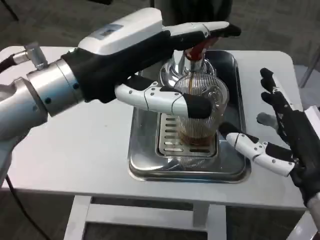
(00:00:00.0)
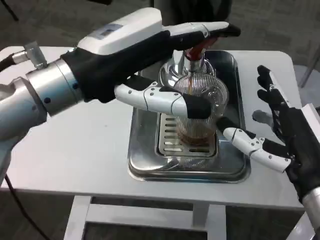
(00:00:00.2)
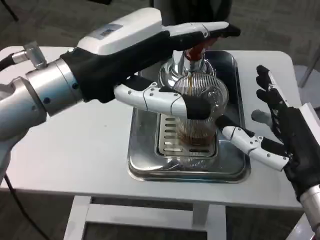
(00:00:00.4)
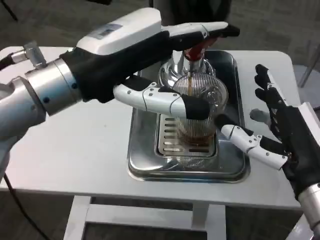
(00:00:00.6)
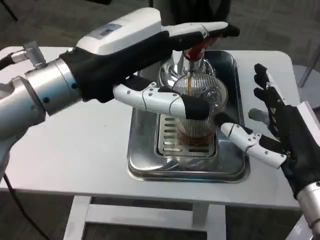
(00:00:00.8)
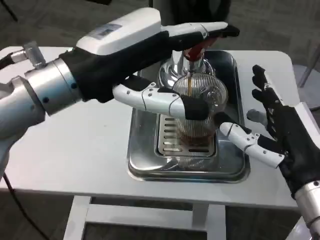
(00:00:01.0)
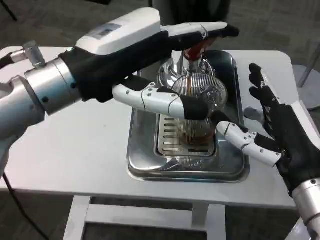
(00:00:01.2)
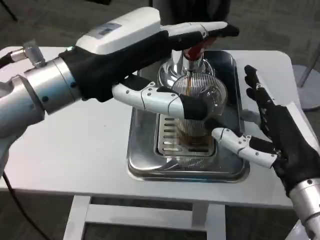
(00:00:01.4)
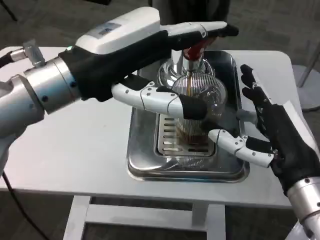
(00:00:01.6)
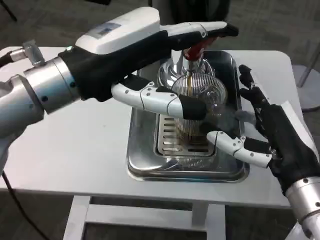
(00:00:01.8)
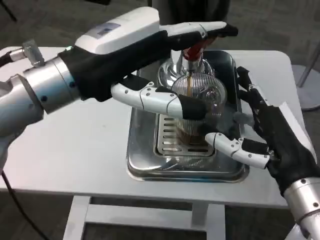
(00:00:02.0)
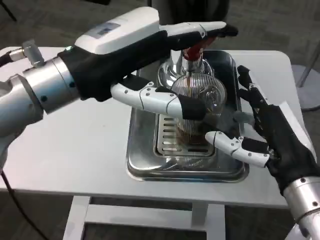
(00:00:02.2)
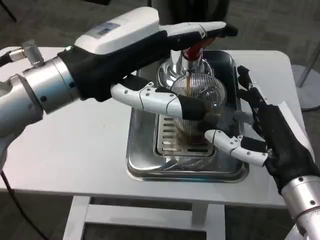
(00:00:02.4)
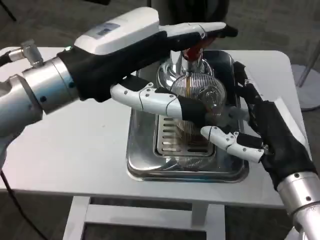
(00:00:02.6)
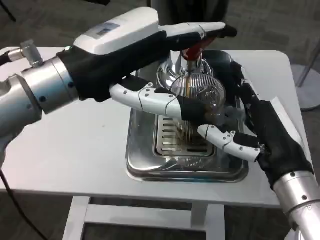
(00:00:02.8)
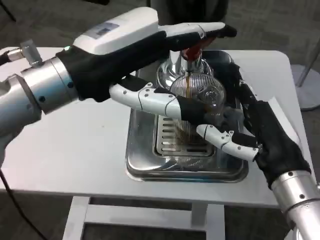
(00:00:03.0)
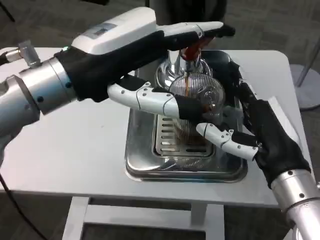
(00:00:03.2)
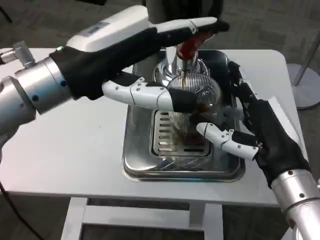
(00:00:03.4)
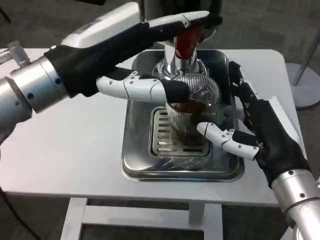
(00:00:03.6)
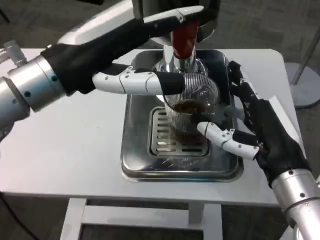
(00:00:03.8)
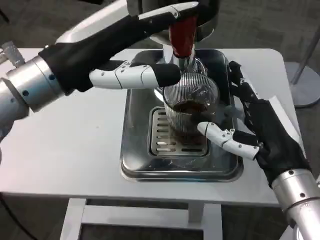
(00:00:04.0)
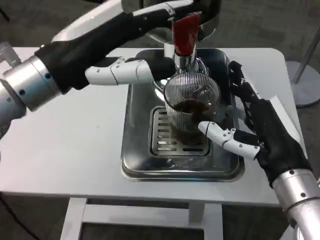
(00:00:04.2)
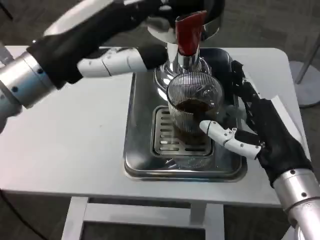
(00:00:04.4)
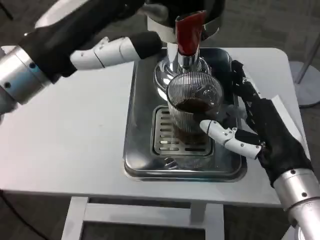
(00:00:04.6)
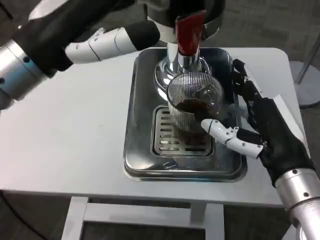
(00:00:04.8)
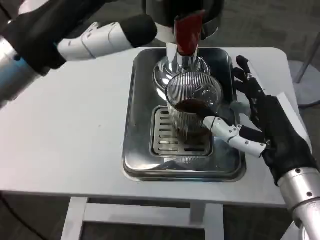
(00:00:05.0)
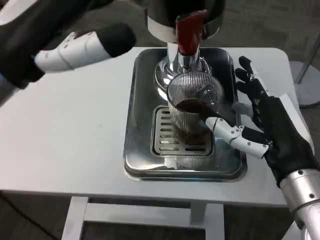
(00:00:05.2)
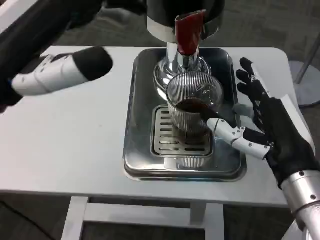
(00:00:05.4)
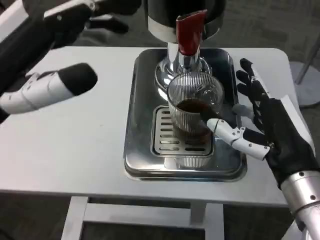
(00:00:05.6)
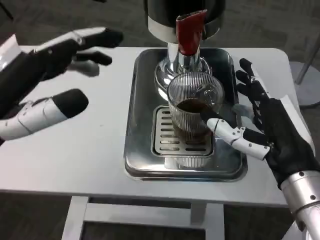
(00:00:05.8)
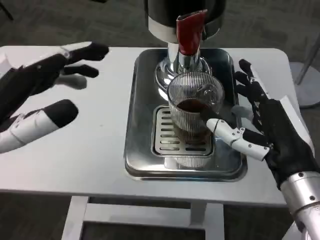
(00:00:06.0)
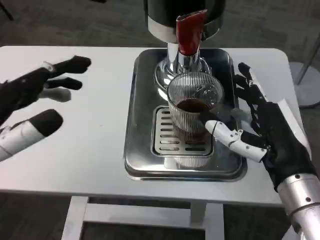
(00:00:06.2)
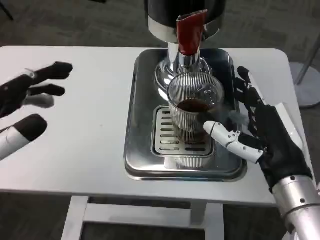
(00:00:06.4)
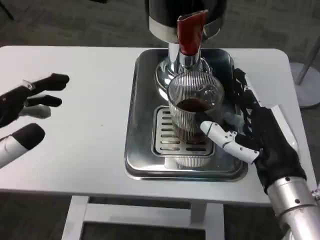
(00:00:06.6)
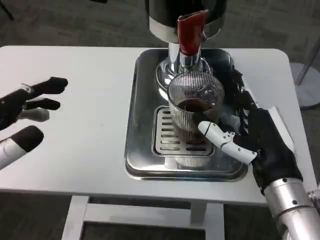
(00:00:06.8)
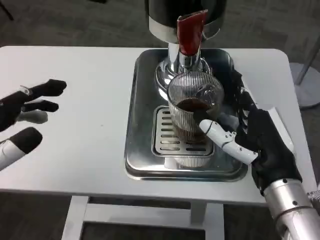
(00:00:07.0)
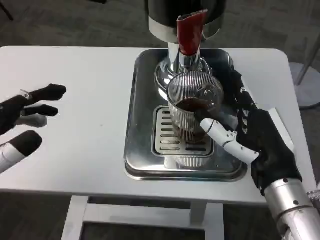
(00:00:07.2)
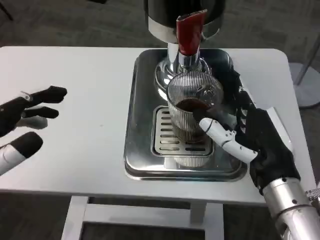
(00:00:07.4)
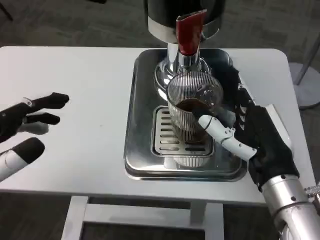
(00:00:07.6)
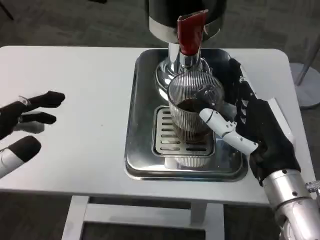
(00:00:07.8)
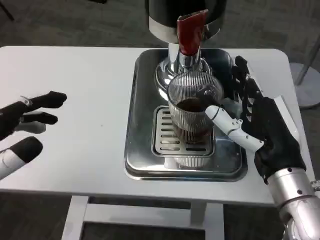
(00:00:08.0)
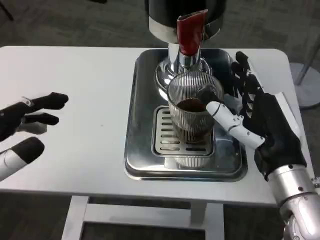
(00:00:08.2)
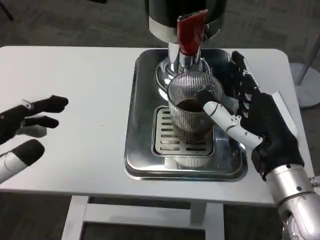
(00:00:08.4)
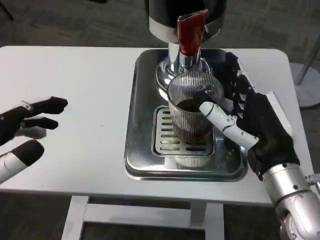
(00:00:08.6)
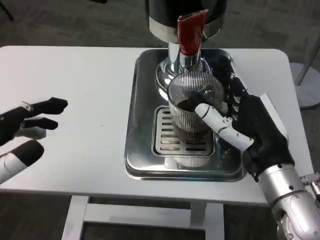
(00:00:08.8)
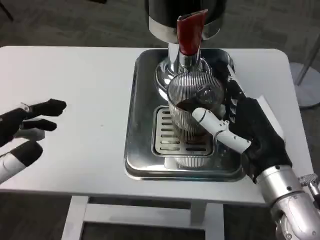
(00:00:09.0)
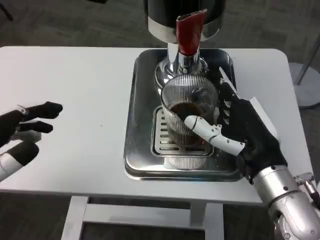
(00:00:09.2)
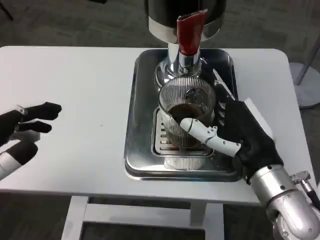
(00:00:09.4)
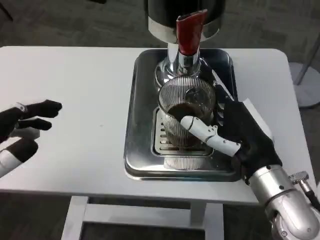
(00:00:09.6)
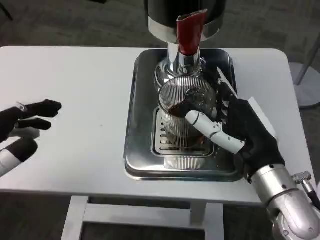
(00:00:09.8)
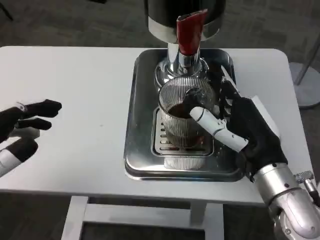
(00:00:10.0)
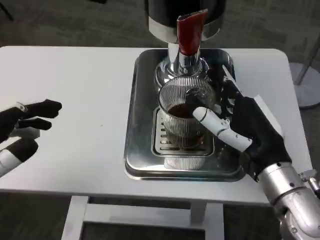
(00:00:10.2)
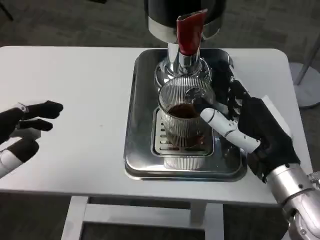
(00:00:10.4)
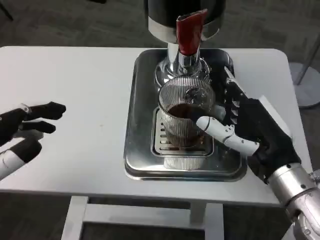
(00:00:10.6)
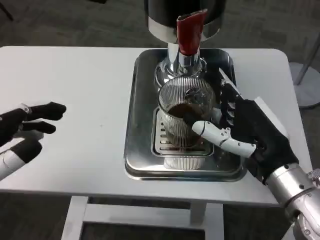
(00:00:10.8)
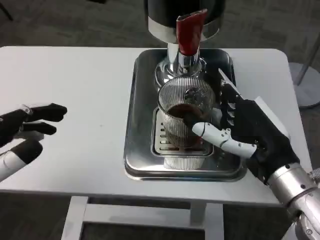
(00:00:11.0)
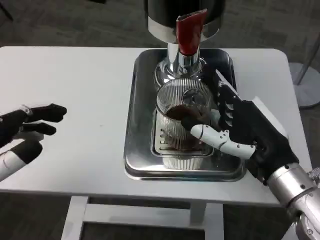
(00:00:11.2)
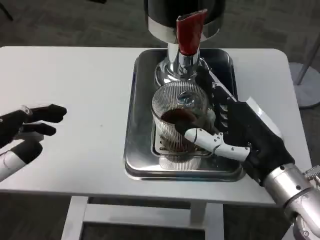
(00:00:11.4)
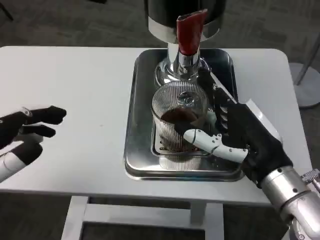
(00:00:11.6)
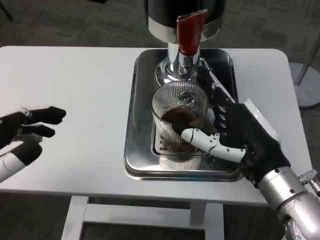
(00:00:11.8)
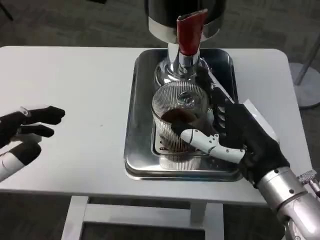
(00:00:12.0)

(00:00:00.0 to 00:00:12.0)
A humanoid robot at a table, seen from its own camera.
Task of the whole recording: Grasp the cup under the faucet to collect the drink, then remove the cup.
00:00:01.6 - 00:00:03.0: The hands move only a little.
00:00:04.4 - 00:00:06.0: The left hand goes about 15 cm backward, downward and to the left.
00:00:06.0 - 00:00:07.6: The left hand shifts by some 5 cm.
00:00:07.6 - 00:00:12.0: There are only small adjustments of the hands.

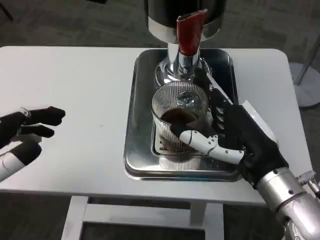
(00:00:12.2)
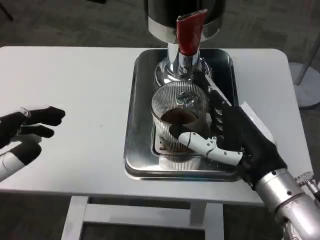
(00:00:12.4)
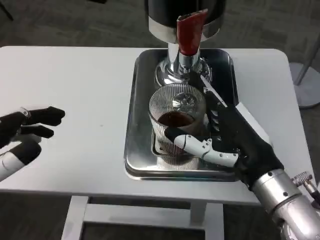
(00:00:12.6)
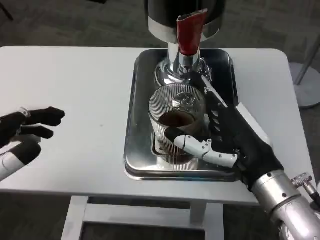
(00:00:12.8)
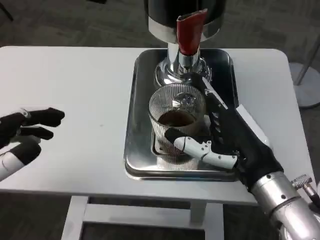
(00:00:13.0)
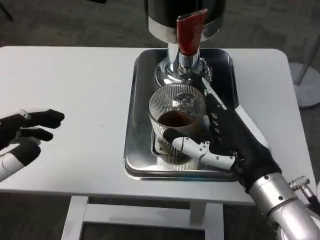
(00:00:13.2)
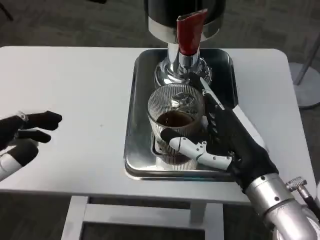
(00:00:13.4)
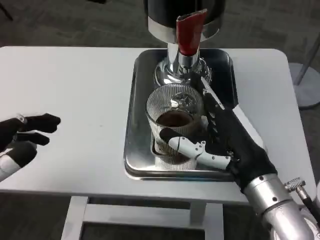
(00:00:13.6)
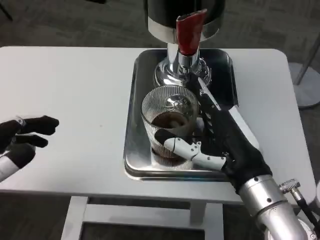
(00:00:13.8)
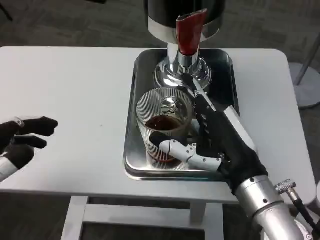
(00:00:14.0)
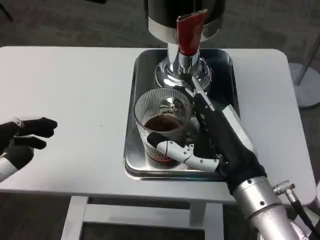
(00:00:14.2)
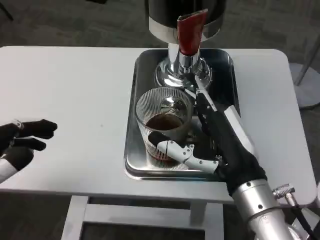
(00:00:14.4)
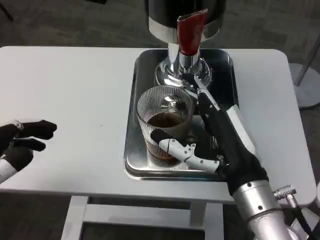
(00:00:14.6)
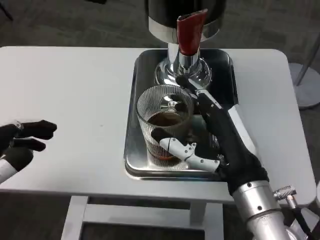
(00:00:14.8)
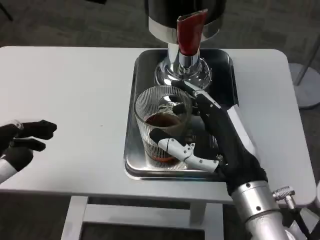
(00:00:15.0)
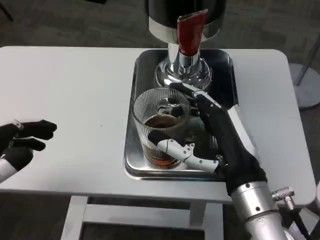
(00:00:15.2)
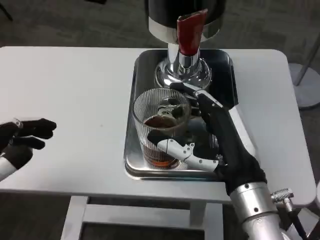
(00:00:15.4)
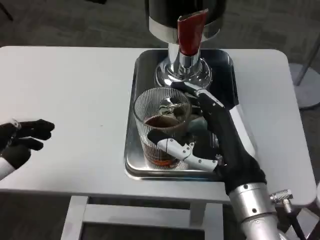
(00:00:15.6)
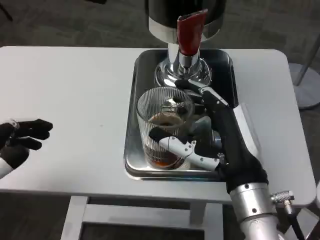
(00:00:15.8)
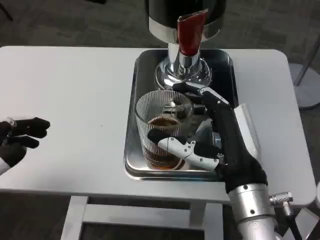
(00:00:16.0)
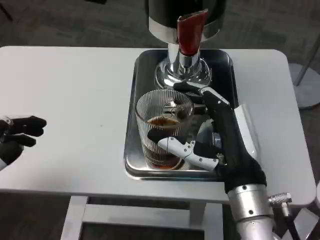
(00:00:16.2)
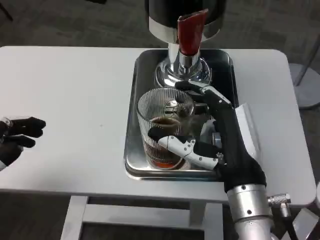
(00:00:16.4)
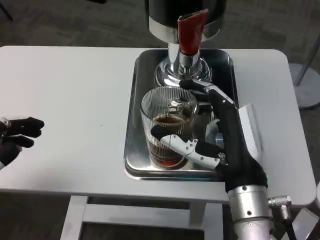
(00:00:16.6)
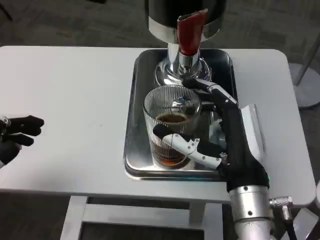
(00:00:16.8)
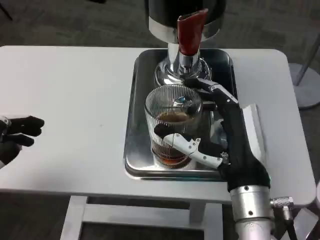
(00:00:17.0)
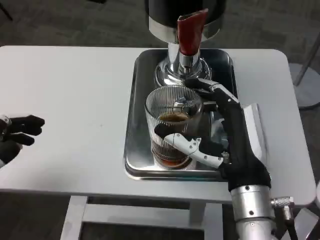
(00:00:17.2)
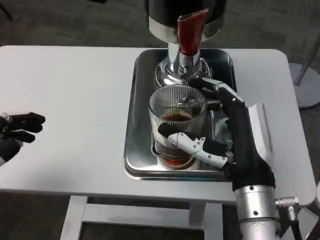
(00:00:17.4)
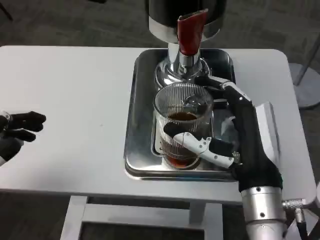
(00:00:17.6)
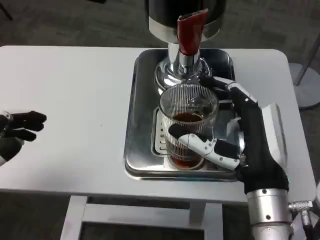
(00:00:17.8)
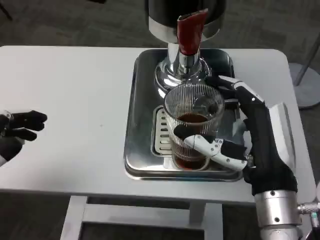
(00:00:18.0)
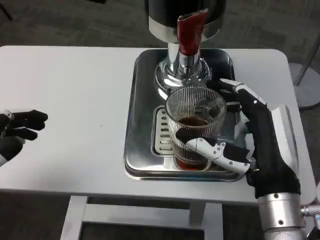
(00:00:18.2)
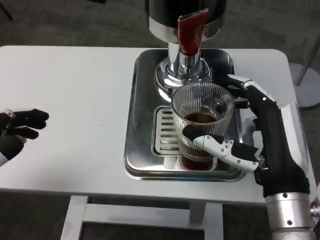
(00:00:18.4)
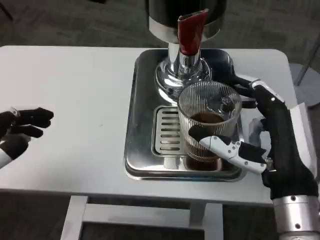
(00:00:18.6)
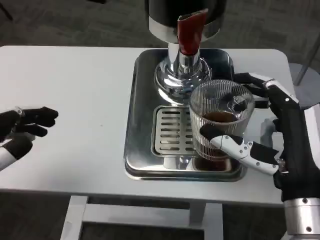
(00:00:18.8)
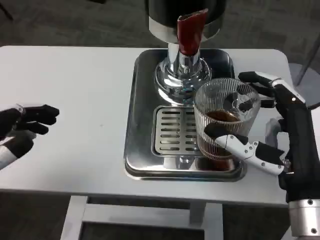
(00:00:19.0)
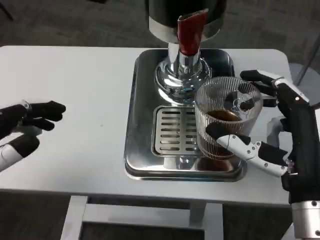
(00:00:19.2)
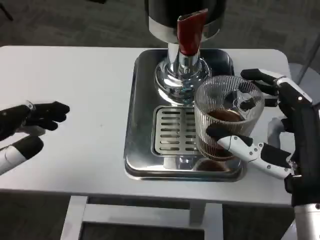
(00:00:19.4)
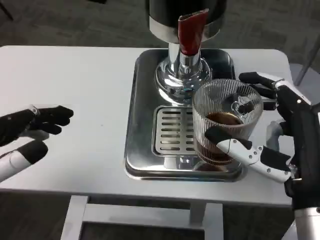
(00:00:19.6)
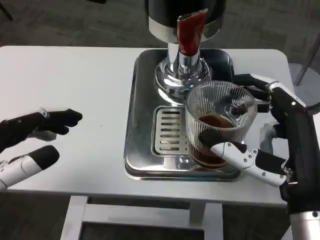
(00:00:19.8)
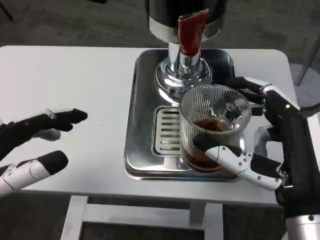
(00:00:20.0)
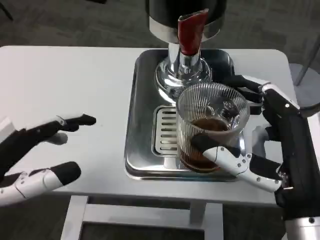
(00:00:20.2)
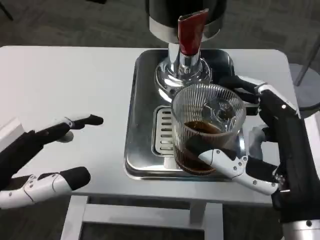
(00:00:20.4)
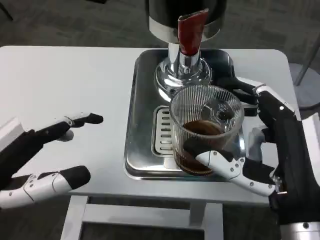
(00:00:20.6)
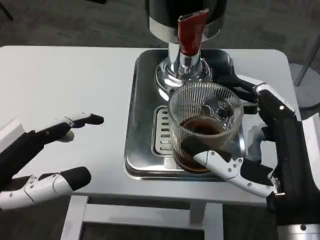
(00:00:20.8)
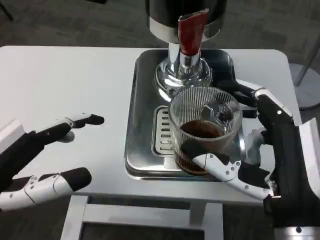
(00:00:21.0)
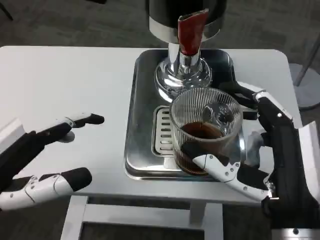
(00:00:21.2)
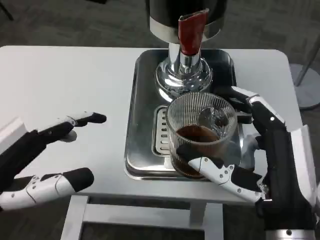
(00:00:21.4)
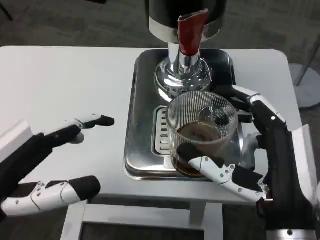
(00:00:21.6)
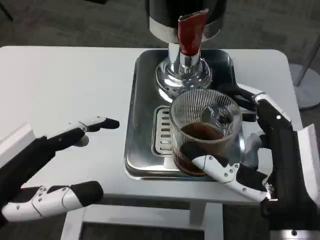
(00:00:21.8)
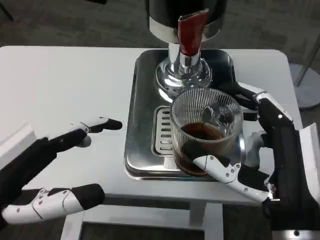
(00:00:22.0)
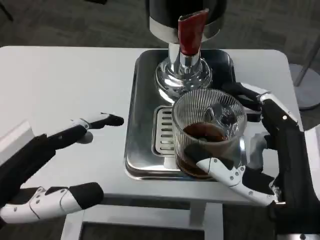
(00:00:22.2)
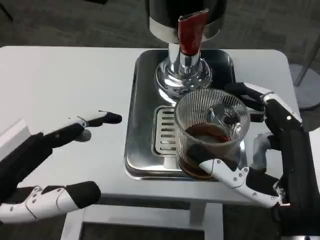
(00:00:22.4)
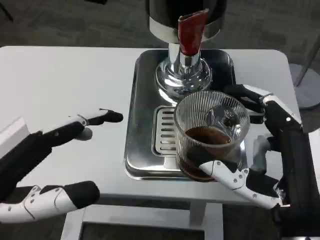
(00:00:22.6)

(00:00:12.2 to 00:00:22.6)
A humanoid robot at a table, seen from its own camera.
Task of the whole recording: Grasp the cup under the faucet to collect the drink, then remove the cup.
00:00:12.2 - 00:00:15.2: The hands make only small movements.
00:00:15.2 - 00:00:16.6: The hands stay close to where they were, moving slightly.
00:00:21.2 - 00:00:22.6: The hands move only a little.
